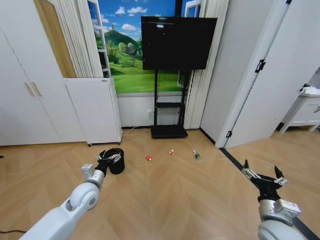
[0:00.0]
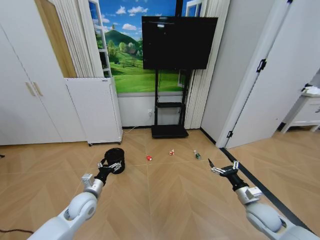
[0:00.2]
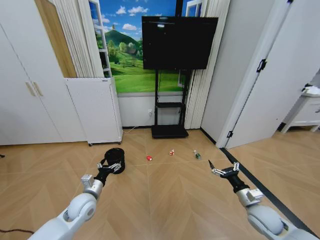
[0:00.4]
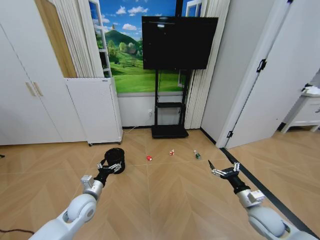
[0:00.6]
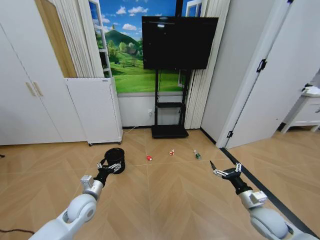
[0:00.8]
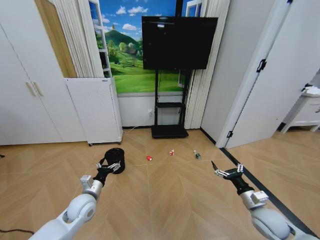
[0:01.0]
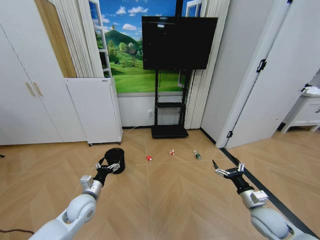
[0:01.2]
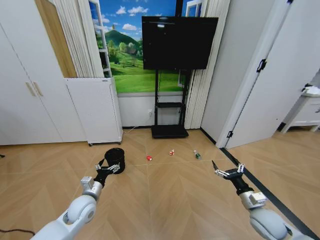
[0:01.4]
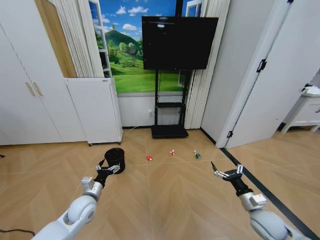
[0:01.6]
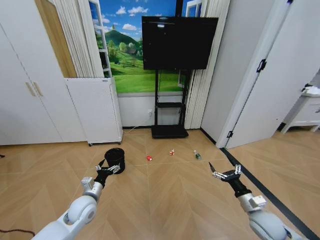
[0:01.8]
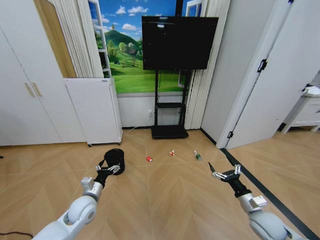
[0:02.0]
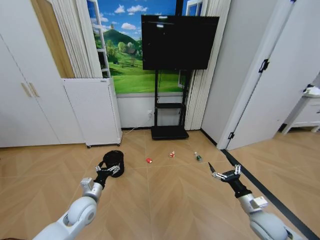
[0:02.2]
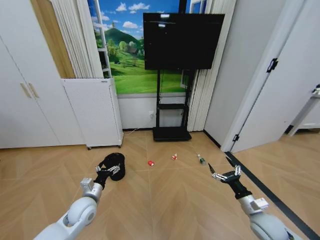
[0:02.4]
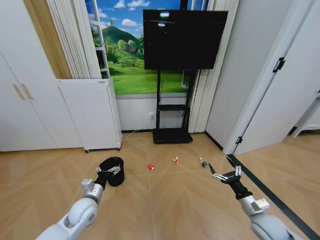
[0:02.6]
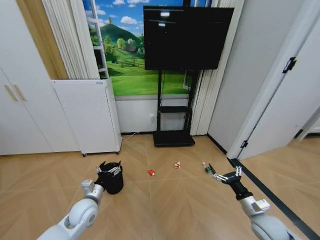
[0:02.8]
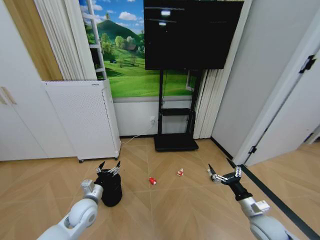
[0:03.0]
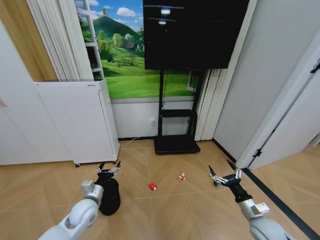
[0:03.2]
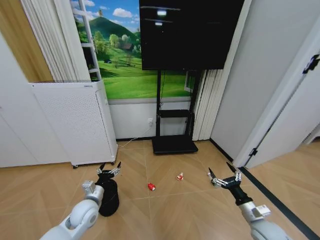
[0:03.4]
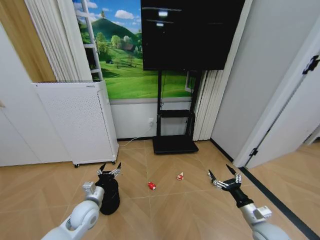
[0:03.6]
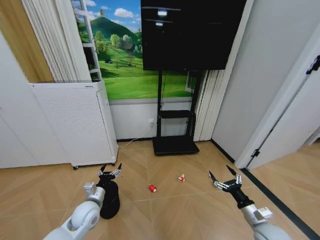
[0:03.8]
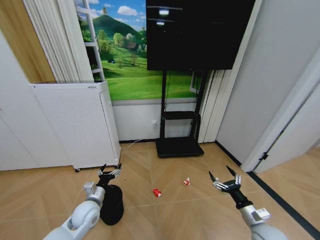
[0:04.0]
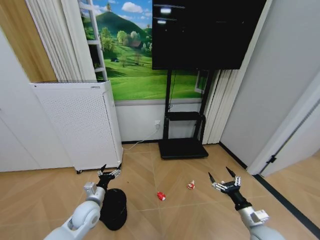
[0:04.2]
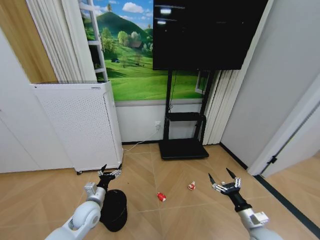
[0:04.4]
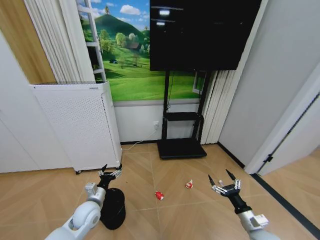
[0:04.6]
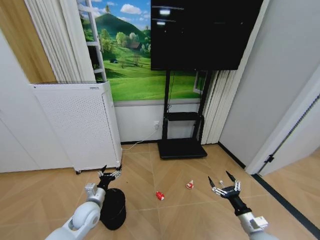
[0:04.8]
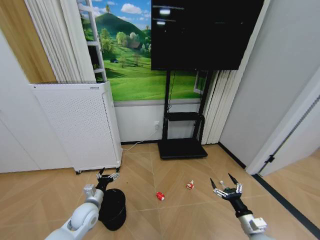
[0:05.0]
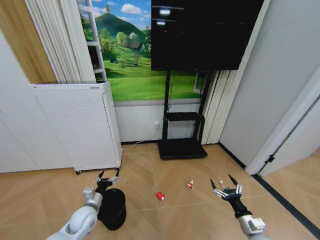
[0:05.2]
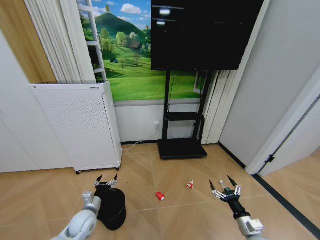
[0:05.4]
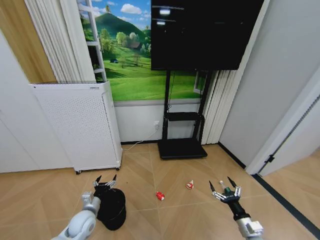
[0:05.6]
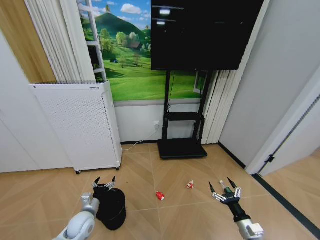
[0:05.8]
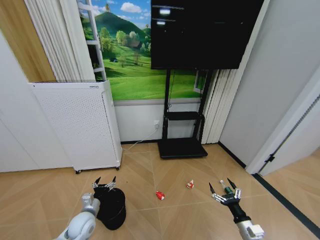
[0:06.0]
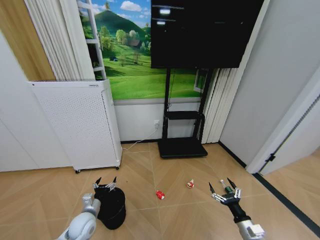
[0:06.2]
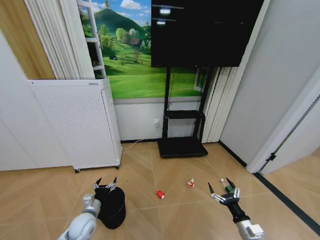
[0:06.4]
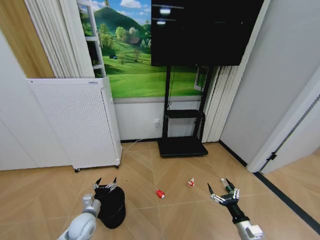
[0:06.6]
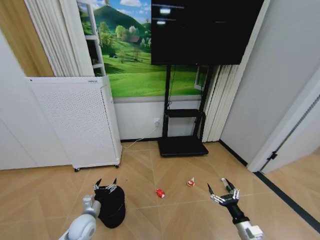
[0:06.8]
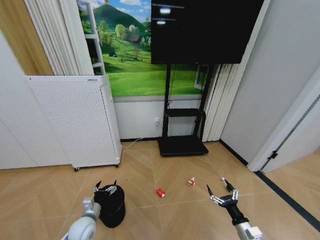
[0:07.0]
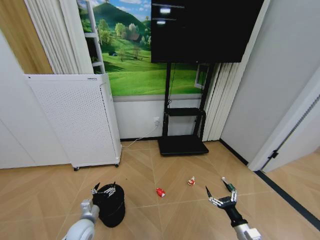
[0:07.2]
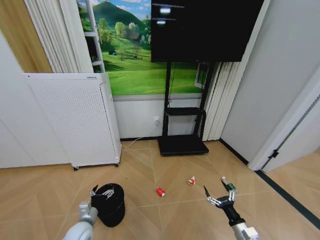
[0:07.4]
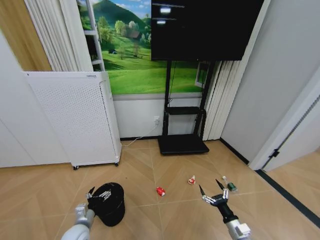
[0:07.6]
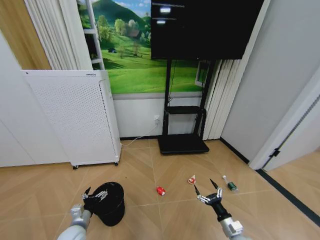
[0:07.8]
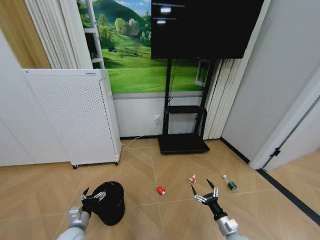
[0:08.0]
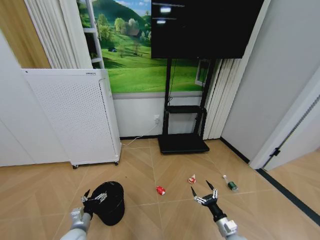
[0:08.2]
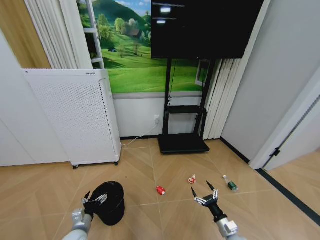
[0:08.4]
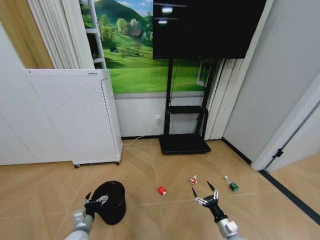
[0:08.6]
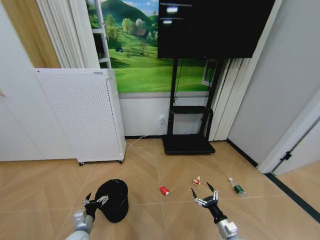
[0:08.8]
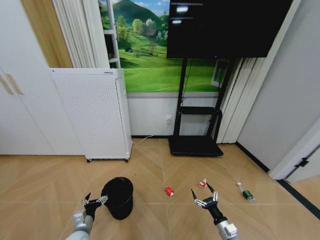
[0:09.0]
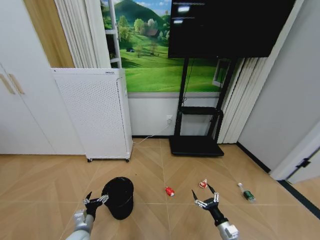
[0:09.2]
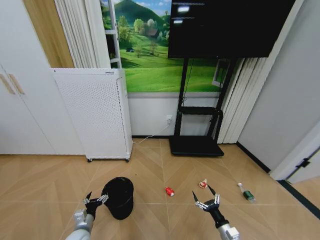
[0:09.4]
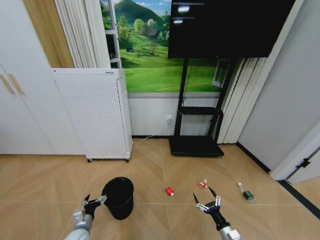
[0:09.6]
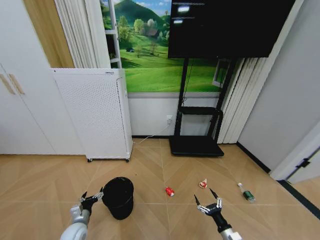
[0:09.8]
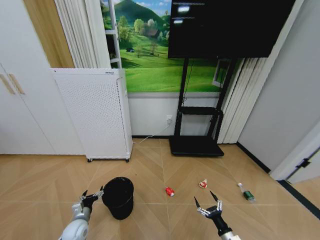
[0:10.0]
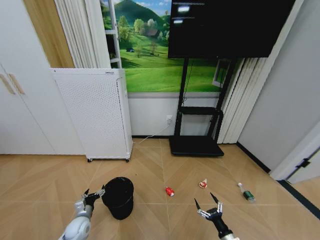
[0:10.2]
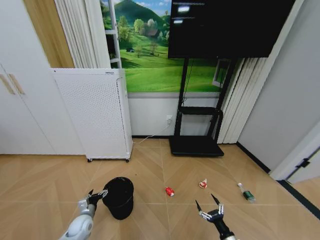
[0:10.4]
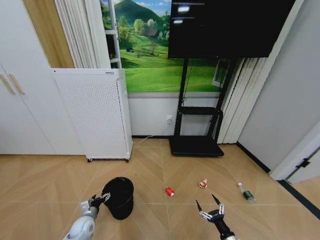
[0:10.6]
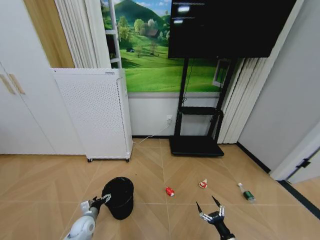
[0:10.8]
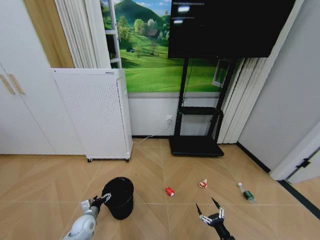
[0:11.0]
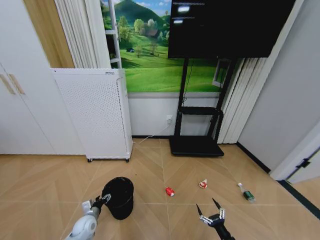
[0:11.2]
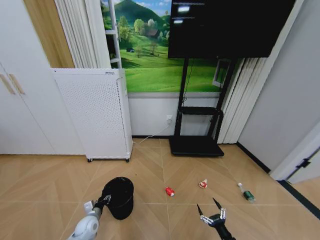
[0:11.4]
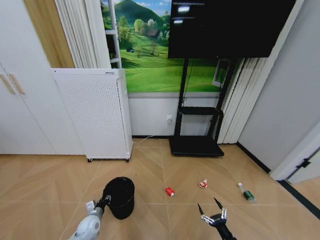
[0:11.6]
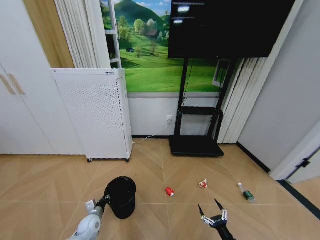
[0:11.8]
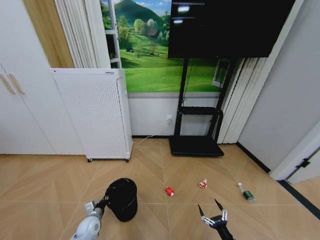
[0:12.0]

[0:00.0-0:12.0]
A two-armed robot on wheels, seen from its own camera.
Task of the whole recording: Pick up the trash bin and place the garbage on the floor into it.
0:04.4 to 0:06.0: The left gripper goes roughly 5 cm downward, while the right gripper ends up some 5 cm from where it was.
0:06.0 to 0:07.6: The grippers stay close to where they were, moving slightly.
0:09.0 to 0:10.4: The right gripper goes about 5 cm backward; the left gripper goes approximately 5 cm forward.
0:10.4 to 0:12.0: The left gripper closes.

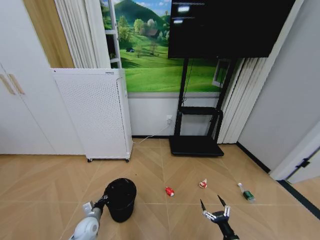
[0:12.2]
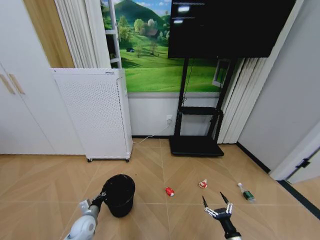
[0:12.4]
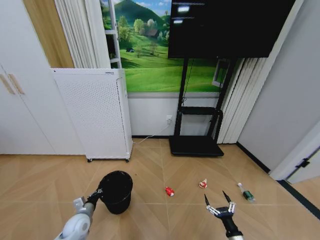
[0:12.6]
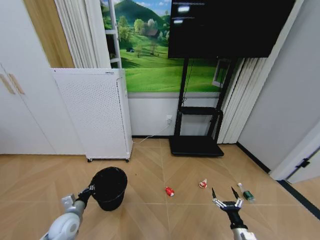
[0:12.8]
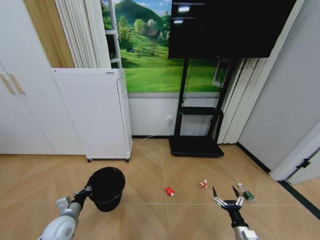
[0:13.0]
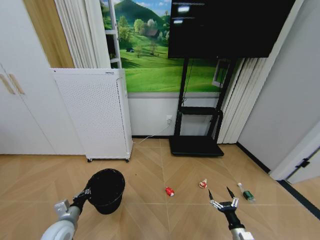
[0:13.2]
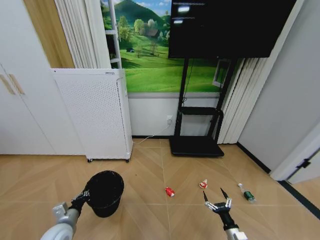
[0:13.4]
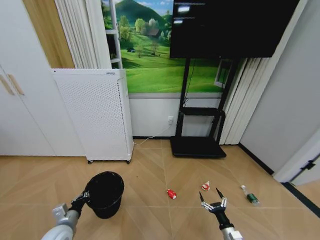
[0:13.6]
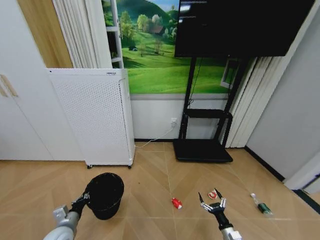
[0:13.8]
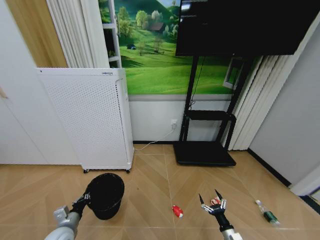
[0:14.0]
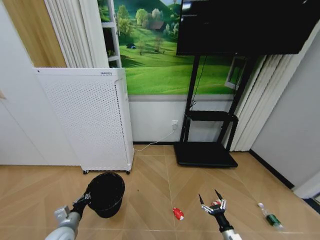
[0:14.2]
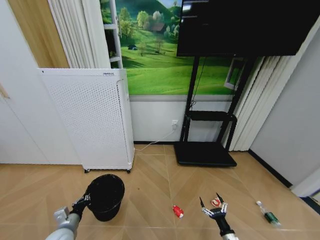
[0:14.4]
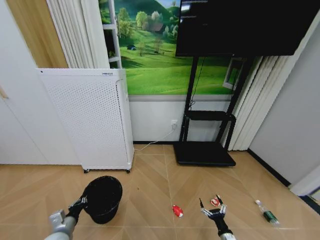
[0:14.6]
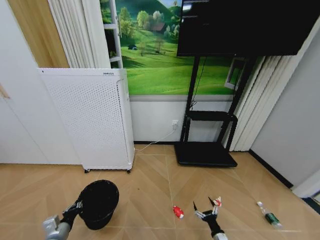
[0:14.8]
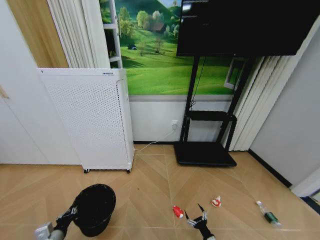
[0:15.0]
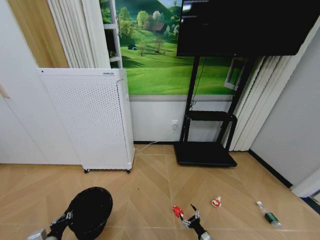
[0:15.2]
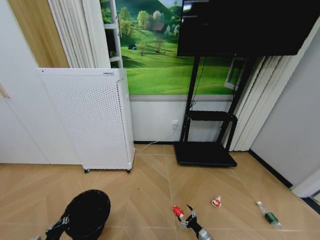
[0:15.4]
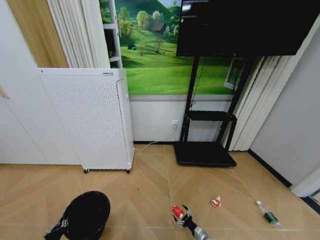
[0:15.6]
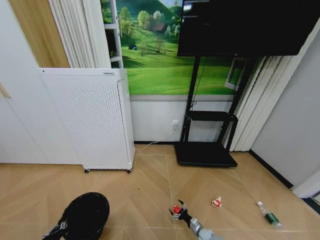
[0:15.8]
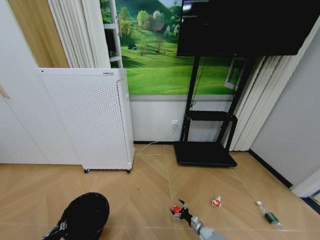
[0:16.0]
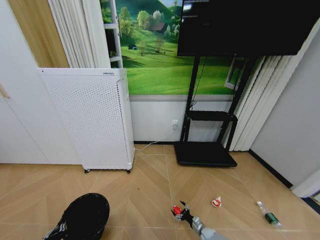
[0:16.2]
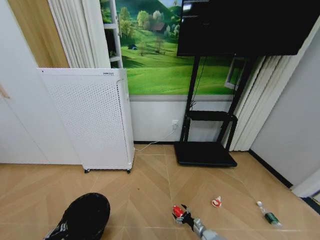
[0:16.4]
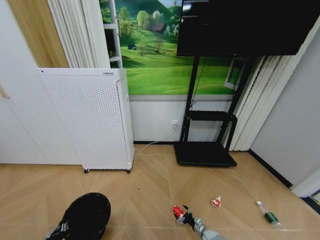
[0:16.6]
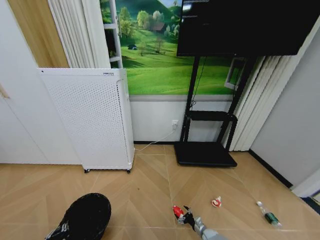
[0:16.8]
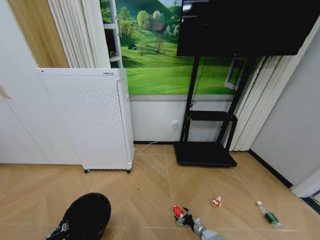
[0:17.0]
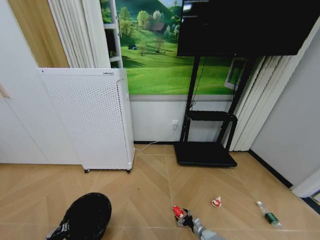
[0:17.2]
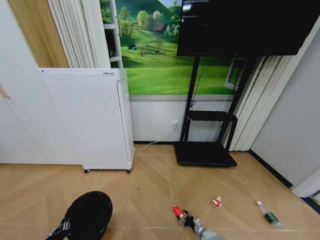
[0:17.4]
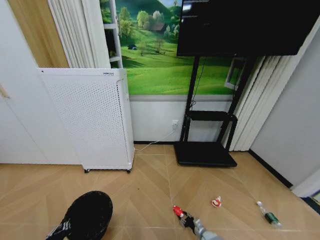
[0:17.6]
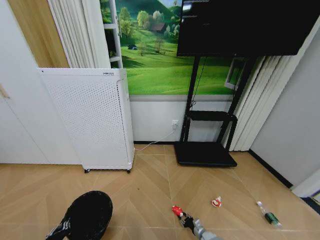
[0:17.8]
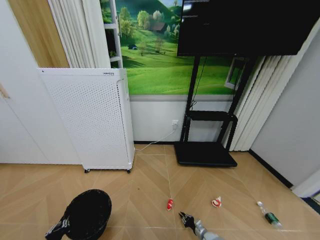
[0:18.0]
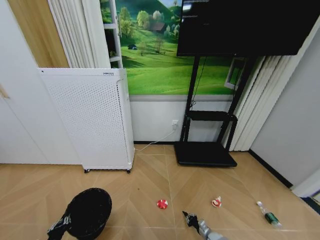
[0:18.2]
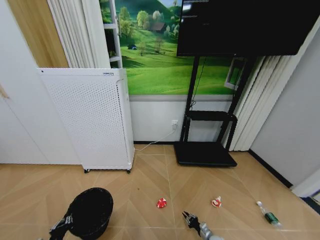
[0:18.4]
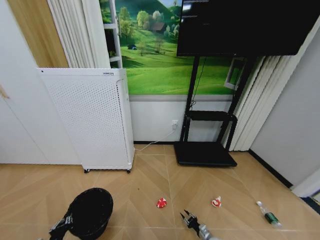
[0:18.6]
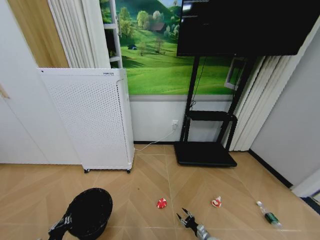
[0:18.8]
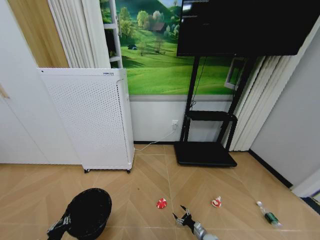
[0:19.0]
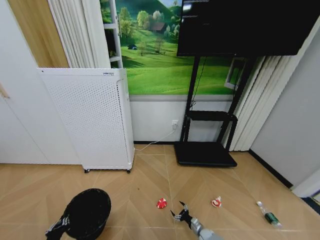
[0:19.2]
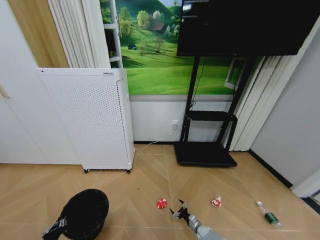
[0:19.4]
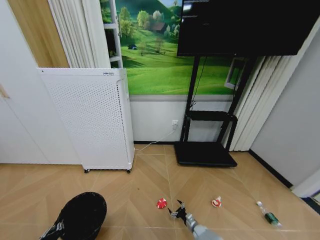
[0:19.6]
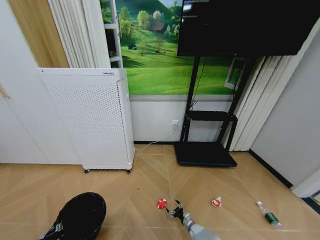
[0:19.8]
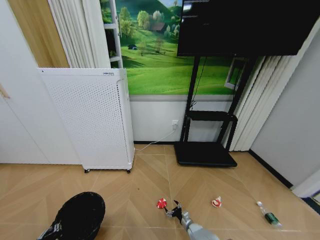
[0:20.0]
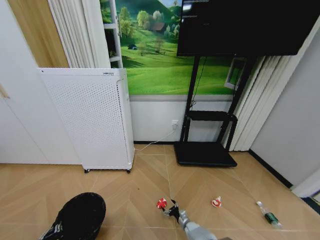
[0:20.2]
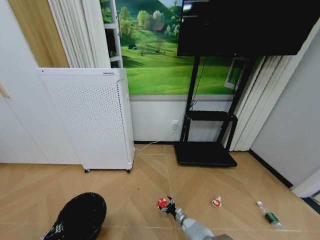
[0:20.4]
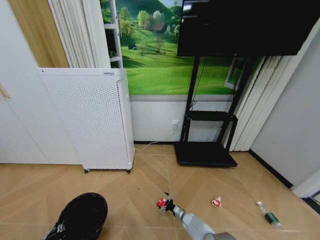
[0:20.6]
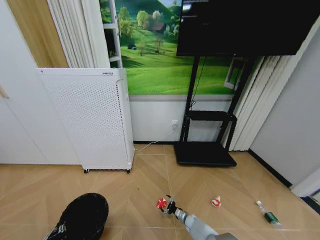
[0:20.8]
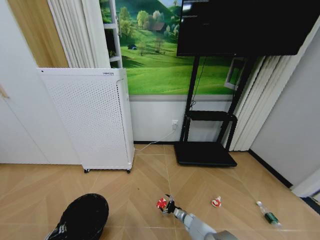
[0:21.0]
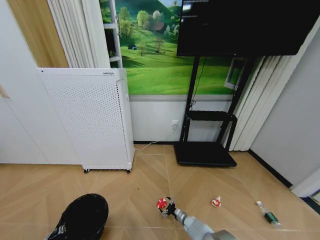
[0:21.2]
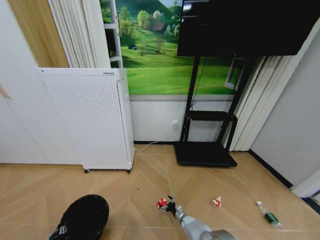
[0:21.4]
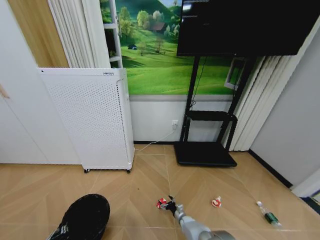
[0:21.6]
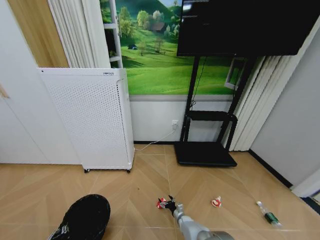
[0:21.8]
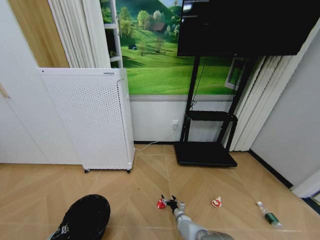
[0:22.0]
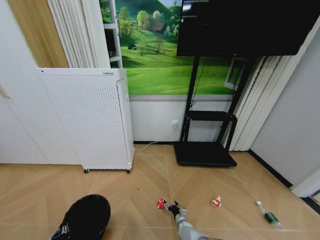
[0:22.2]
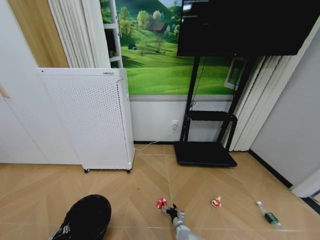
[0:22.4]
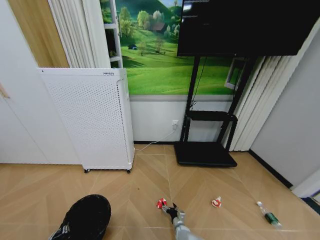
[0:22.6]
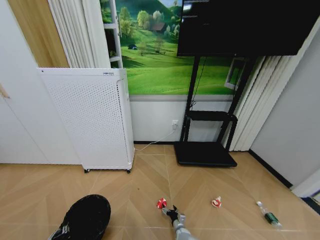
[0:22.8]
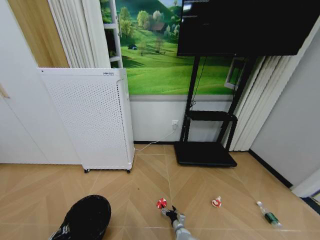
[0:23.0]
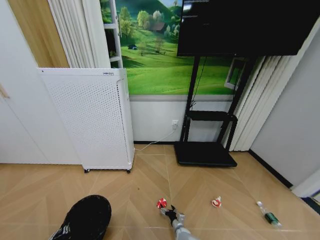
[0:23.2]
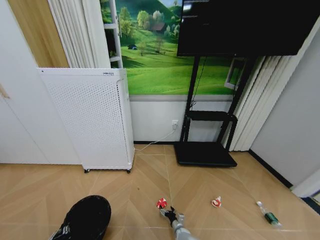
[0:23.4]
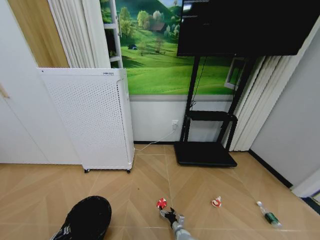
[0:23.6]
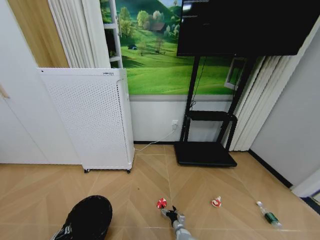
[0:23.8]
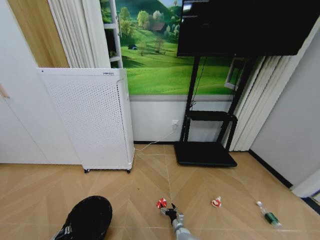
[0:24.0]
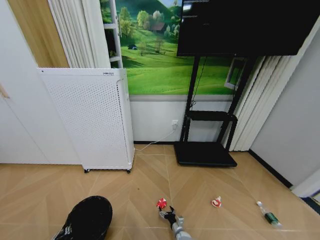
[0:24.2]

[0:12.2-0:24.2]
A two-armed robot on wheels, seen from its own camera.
Task of the whole recording: Pick up the trash bin and place the garbage on the floor into it.
0:12.2 to 0:13.8: The left gripper is displaced upward and backward by some 10 cm.
0:13.8 to 0:15.2: The right gripper moves downward and to the left, roughly 10 cm. The left gripper goes about 10 cm backward.
0:15.2 to 0:16.6: The right gripper heads forward and downward, covering roughly 10 cm.
0:16.6 to 0:18.2: The right gripper closes.
0:18.2 to 0:19.8: The right gripper moves to the left, some 10 cm, and opens its fingers.
0:21.2 to 0:22.6: The right gripper is displaced to the left by some 5 cm.
0:22.6 to 0:24.2: The grippers make only small movements.
